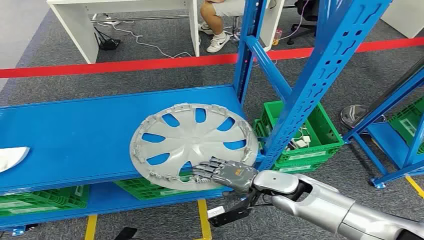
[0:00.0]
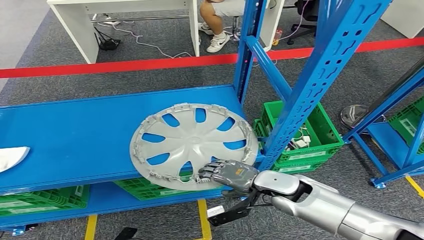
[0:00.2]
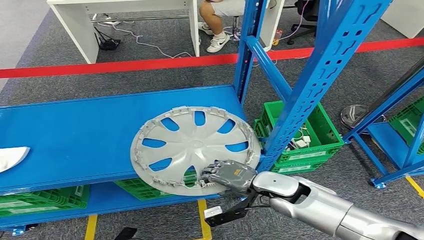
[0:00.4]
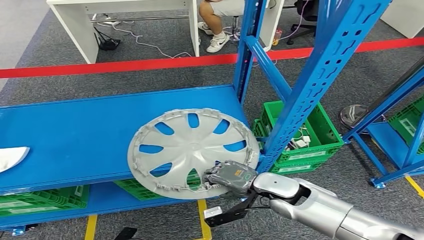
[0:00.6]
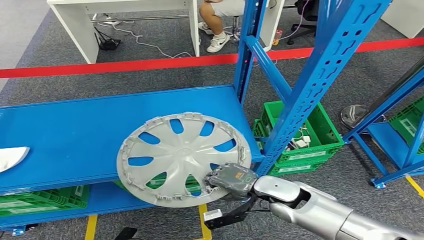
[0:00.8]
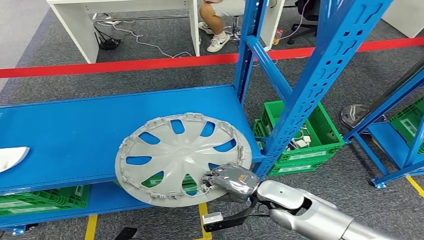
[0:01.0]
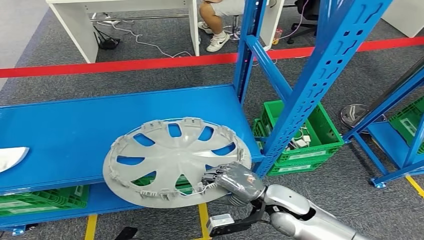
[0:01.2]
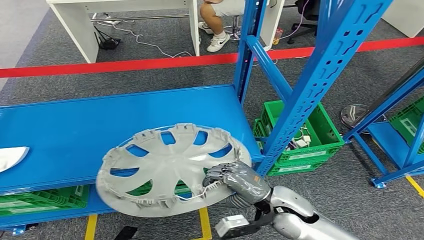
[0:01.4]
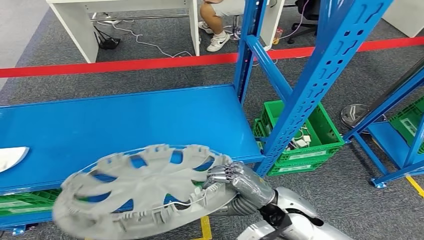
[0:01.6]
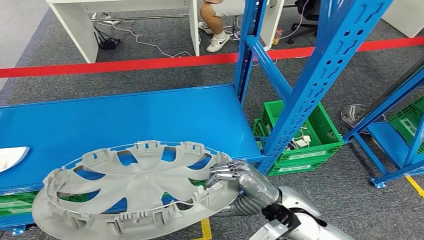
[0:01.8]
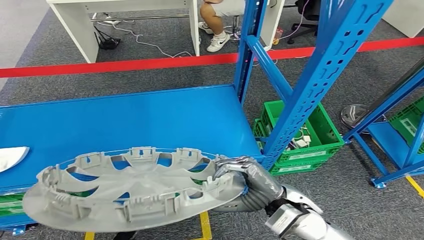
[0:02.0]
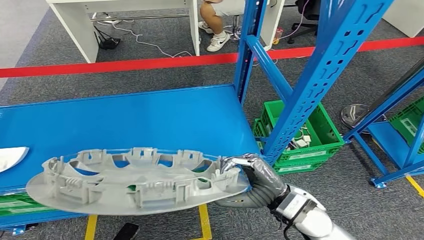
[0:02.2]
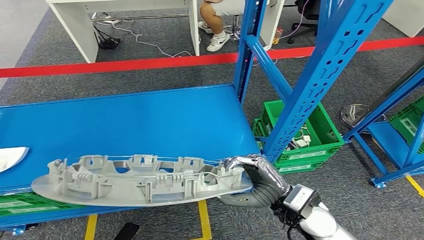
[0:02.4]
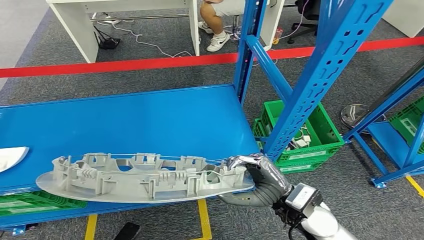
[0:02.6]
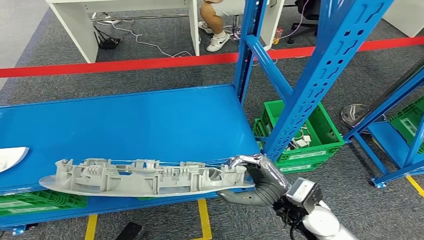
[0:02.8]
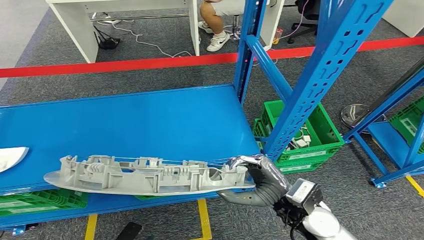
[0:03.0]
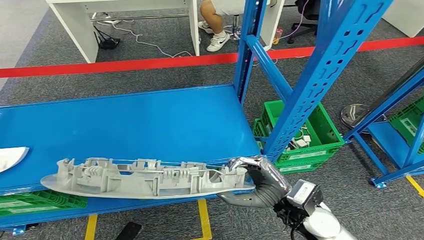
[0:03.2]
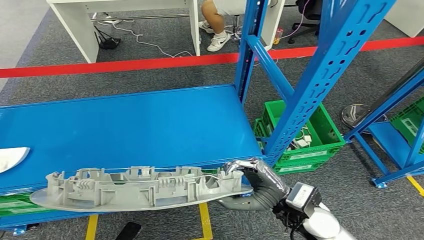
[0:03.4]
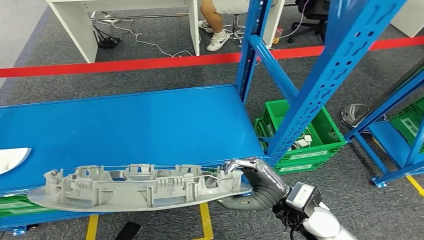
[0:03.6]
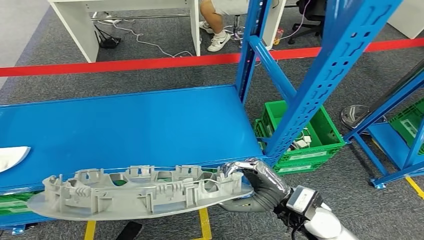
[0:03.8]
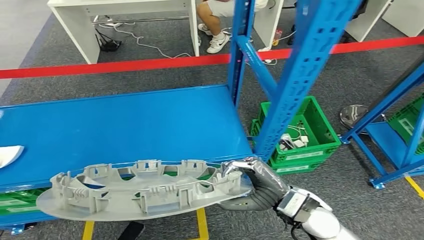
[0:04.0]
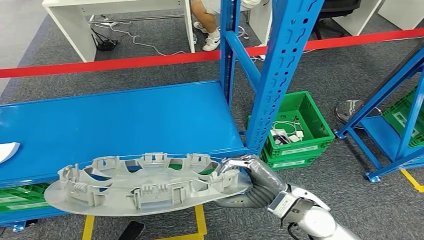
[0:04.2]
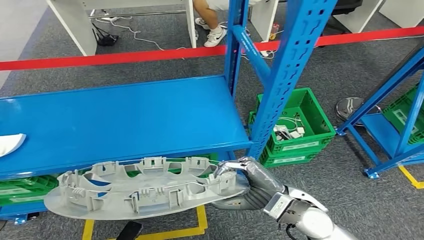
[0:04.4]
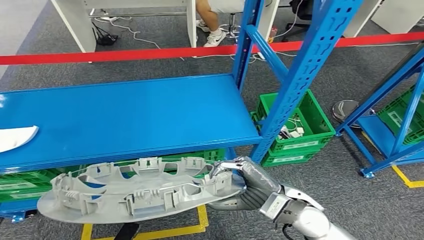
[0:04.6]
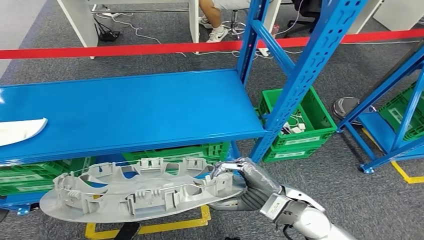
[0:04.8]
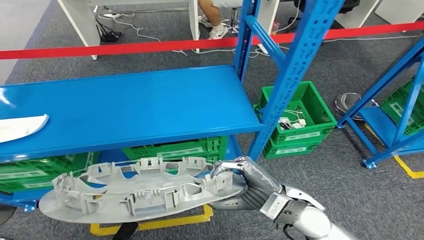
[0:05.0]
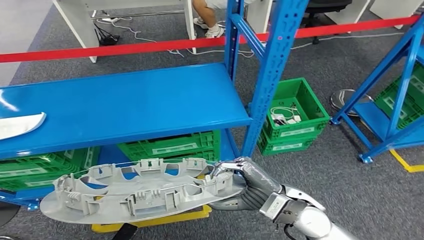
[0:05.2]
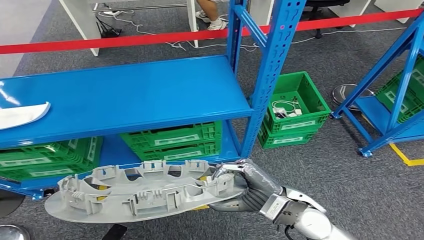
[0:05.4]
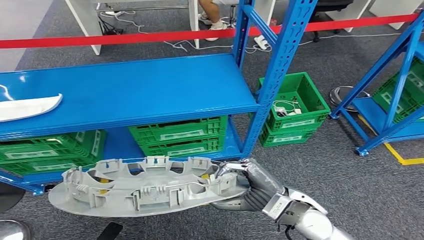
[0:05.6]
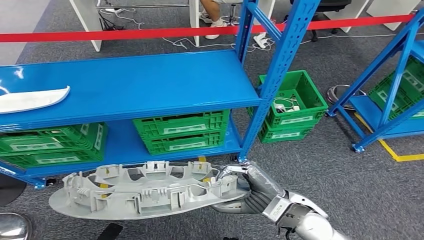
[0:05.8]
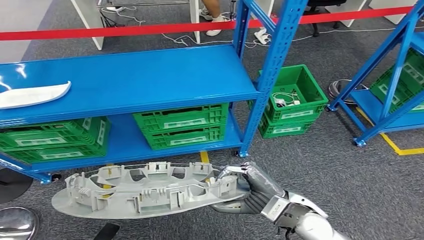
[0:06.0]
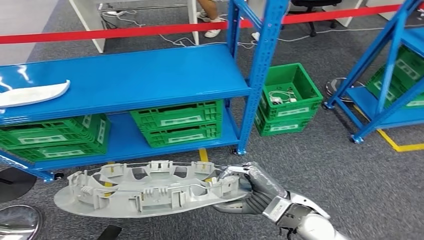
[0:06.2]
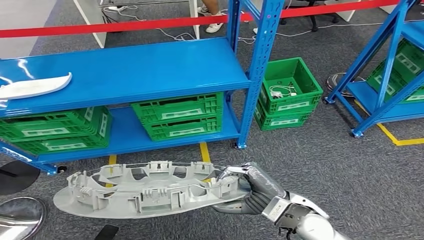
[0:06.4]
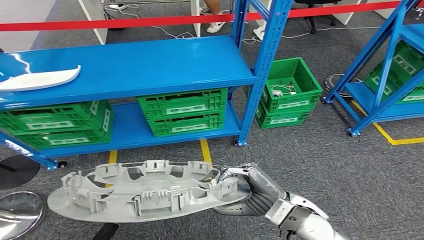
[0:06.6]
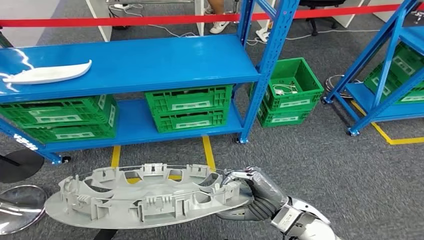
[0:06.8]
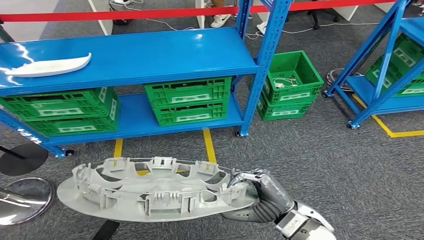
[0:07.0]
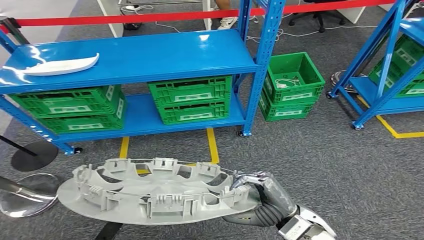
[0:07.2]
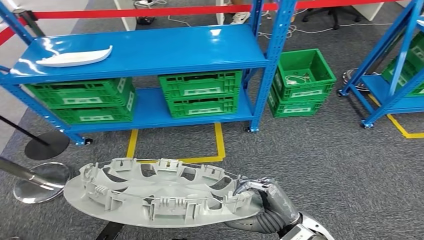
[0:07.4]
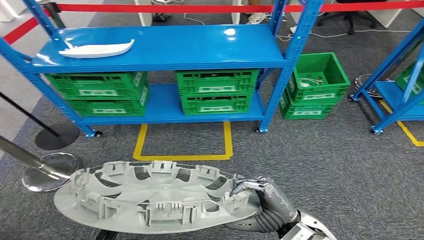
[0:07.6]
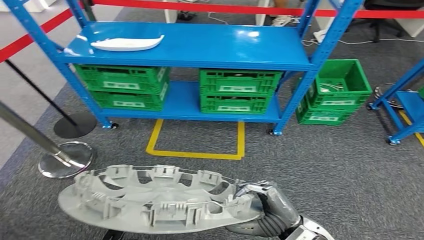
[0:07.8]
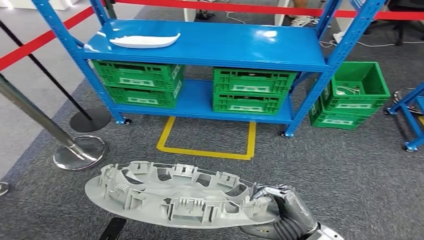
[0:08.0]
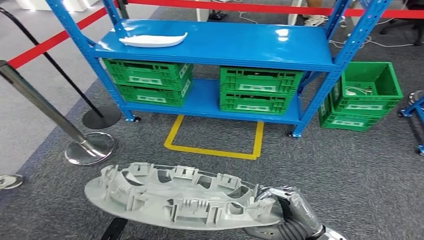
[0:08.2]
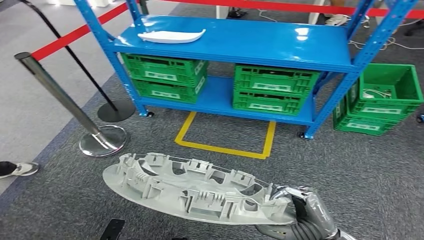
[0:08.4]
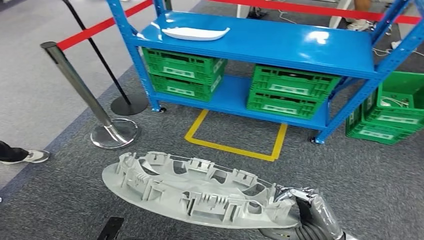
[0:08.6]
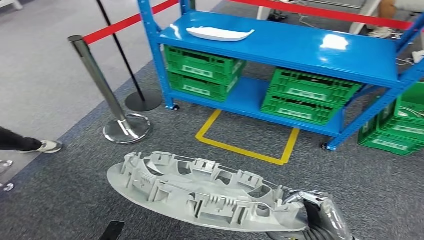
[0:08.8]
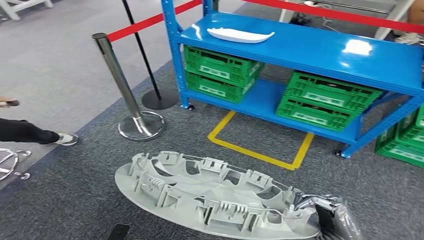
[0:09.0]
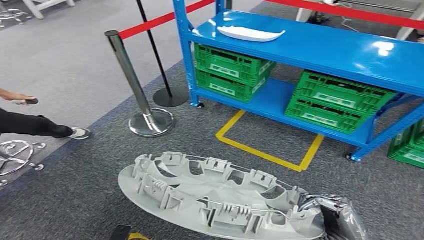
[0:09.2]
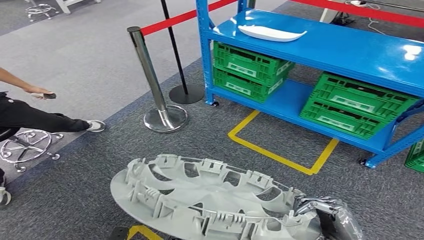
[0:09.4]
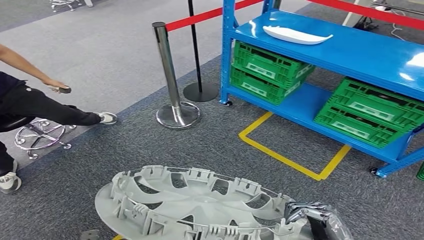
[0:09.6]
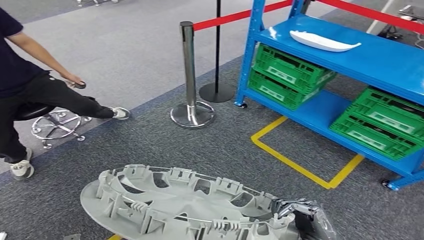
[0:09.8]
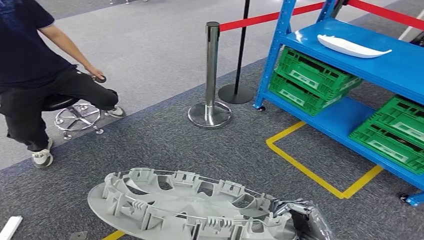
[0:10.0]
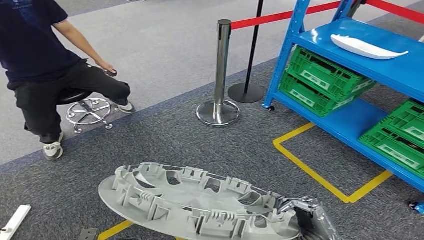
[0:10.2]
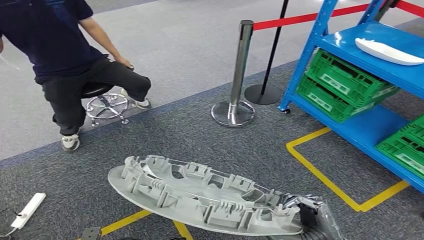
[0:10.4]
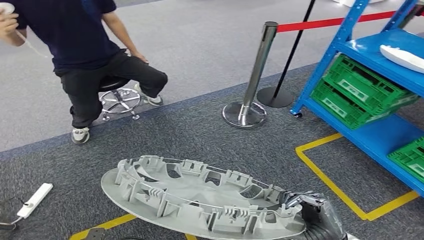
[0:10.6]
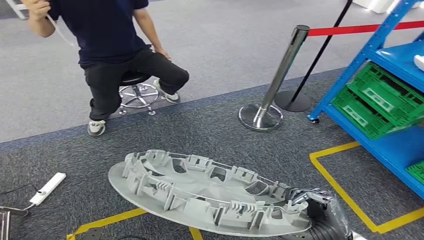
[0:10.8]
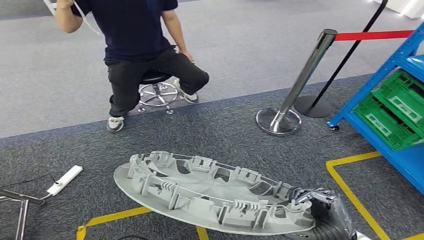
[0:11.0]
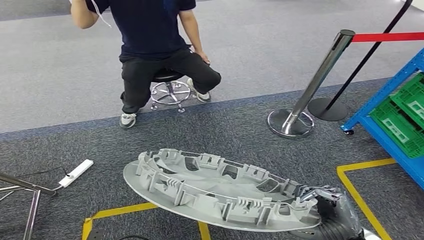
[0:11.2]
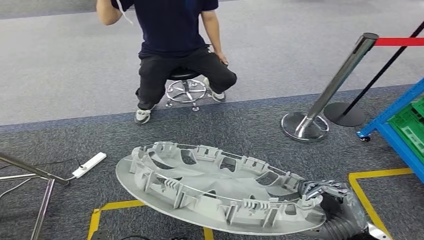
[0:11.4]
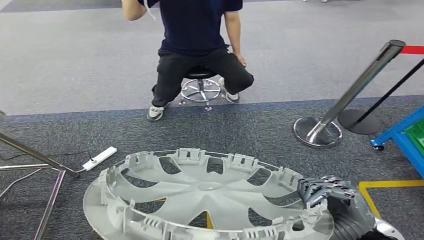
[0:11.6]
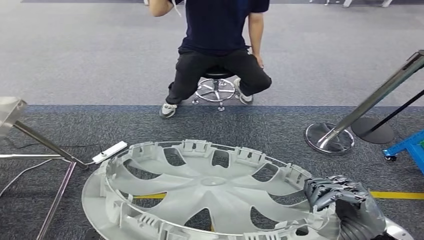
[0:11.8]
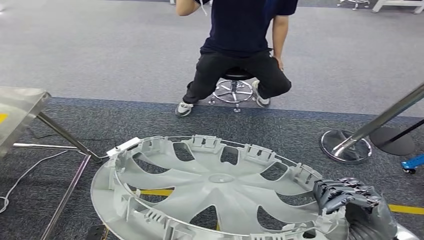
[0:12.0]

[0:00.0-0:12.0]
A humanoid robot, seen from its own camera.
Step, 0:00.0 to 0:04.8: Pick up the small component from the shelf.

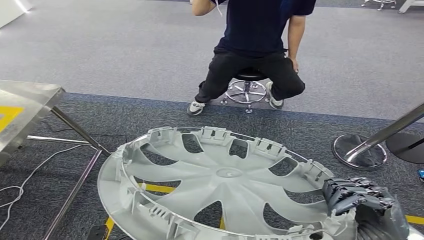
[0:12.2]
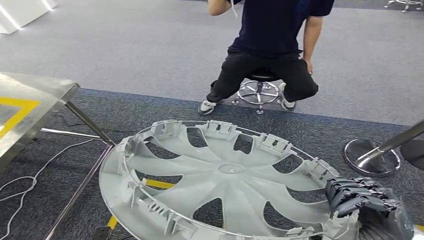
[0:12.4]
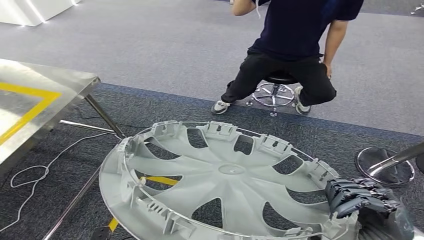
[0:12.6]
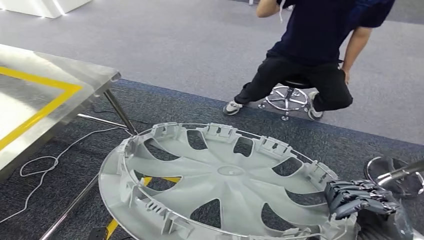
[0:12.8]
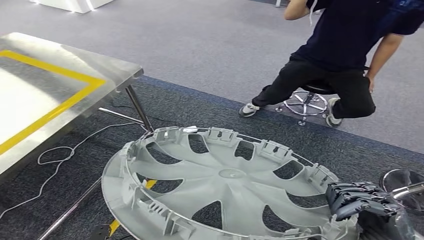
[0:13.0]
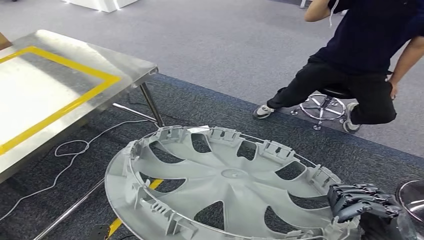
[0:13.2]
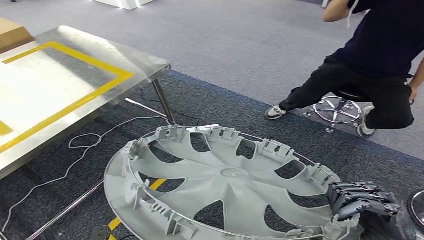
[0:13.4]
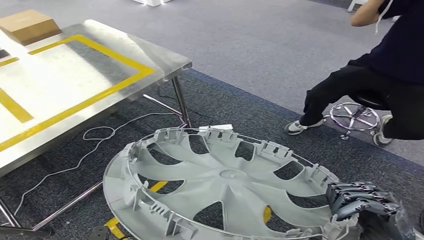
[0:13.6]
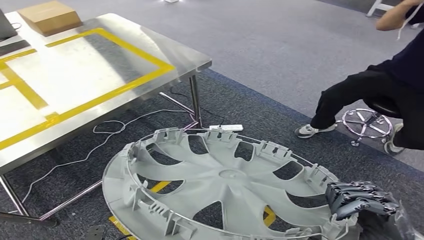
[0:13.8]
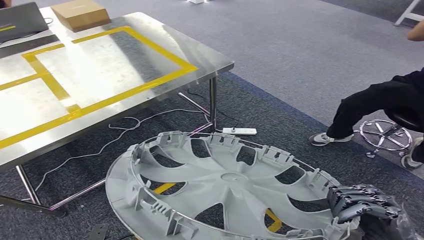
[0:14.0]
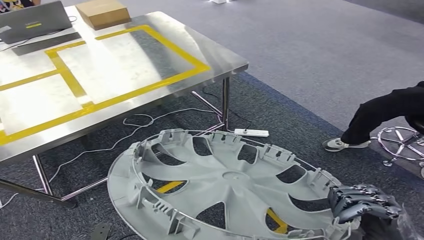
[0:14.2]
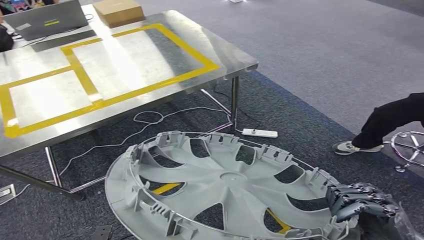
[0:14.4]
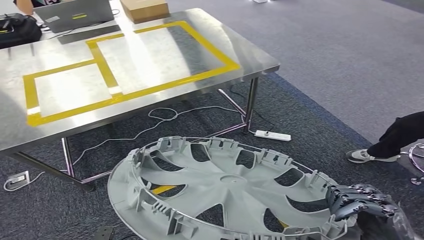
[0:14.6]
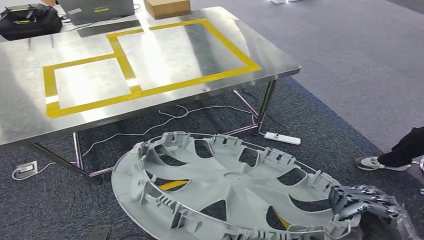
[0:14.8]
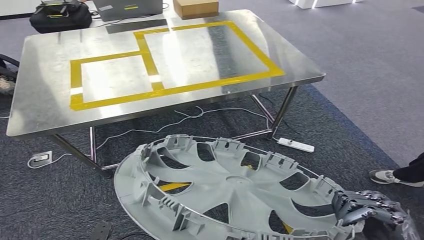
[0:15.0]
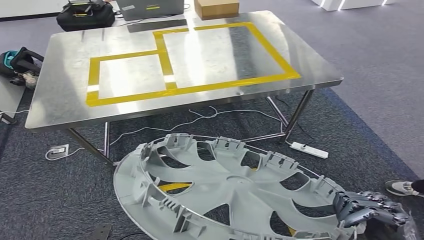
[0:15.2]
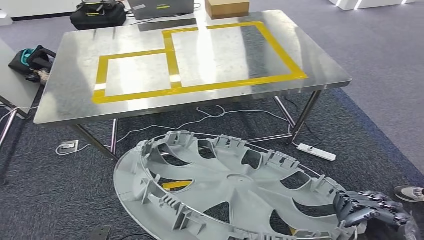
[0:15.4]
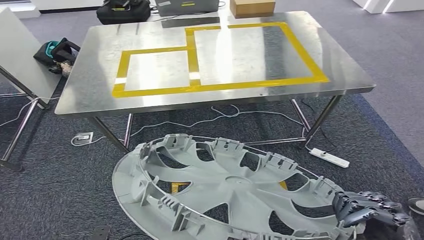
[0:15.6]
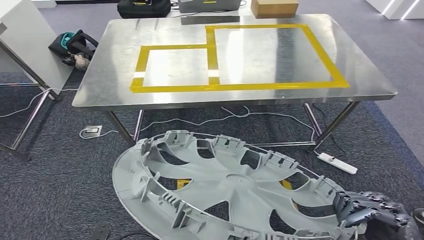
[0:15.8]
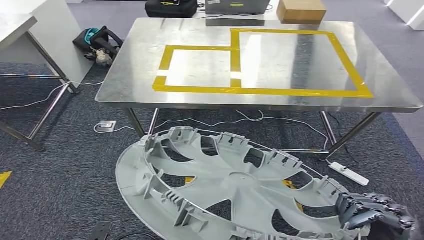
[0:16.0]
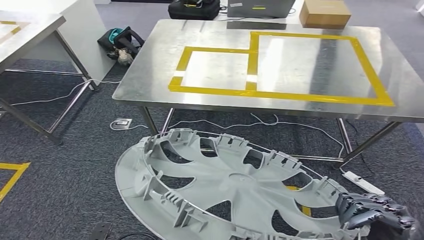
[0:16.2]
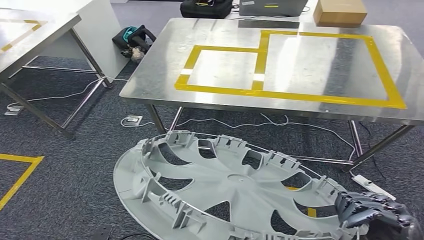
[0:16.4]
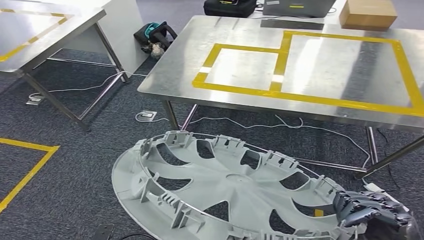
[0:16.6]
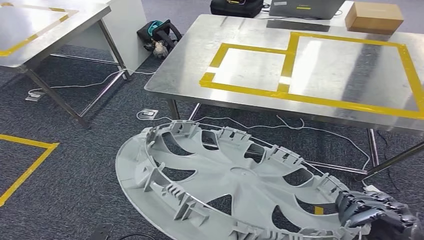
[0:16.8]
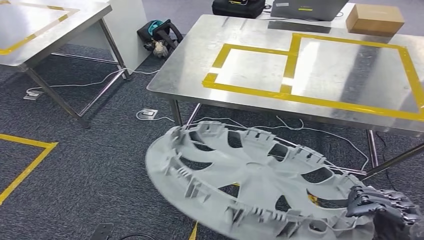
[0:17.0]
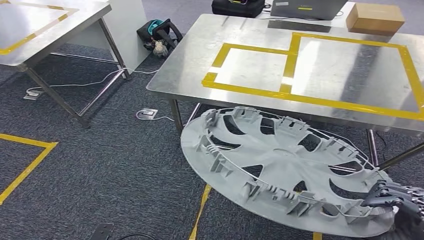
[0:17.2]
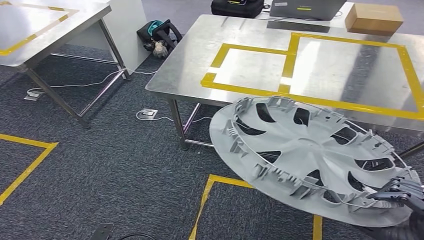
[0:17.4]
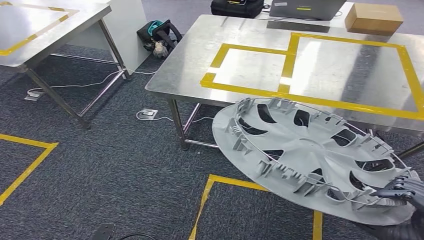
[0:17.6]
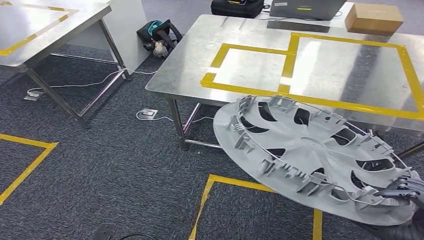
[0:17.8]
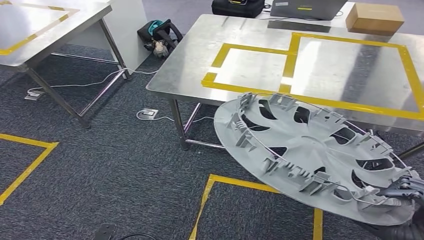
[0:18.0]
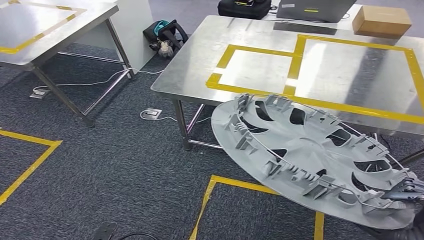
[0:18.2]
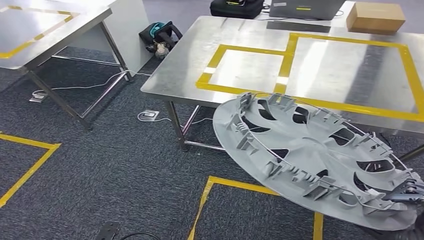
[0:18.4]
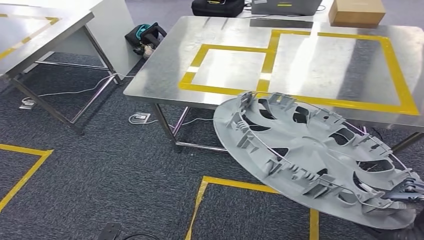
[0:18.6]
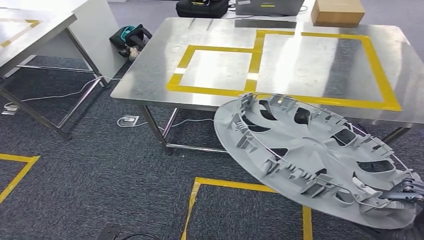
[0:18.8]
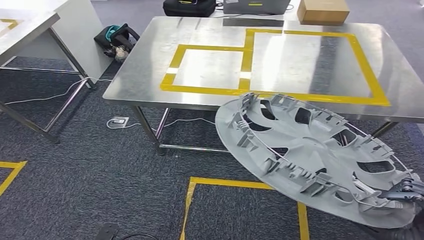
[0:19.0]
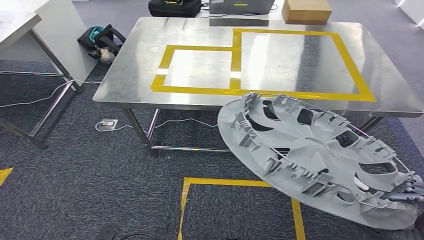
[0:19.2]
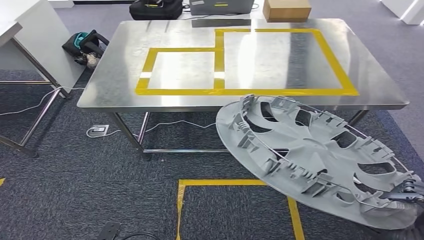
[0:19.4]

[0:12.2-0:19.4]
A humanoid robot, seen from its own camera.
Step, 0:12.2 to 0:16.0: Bring the small component to the front of the workbench.
